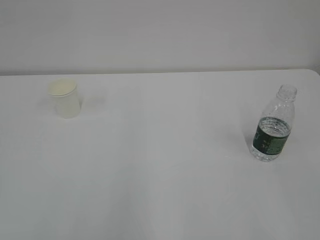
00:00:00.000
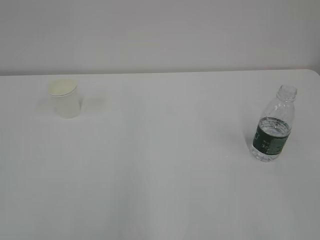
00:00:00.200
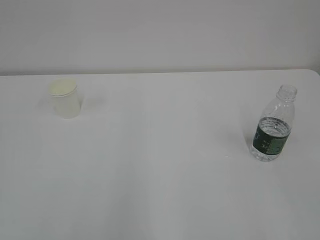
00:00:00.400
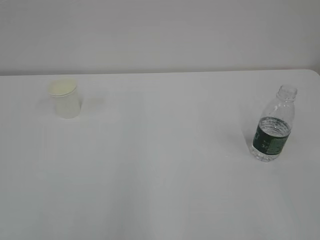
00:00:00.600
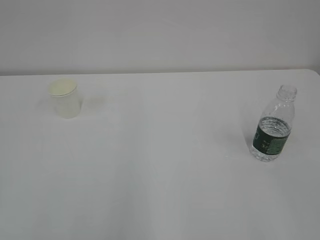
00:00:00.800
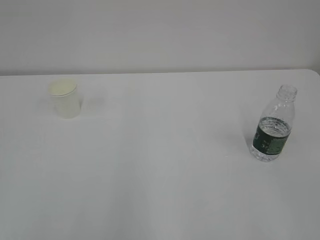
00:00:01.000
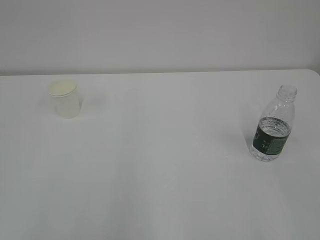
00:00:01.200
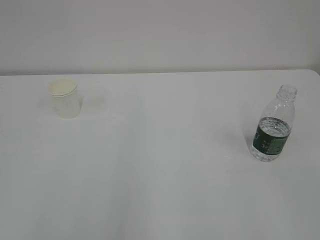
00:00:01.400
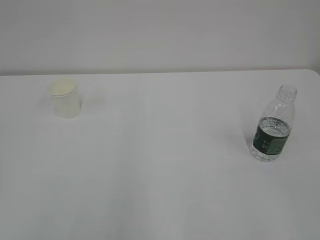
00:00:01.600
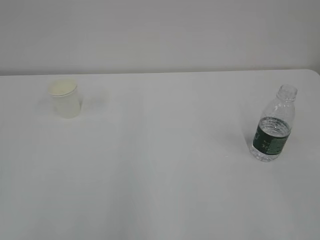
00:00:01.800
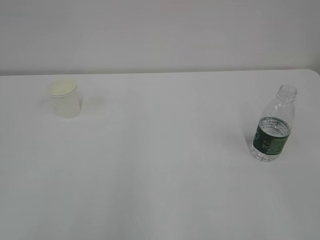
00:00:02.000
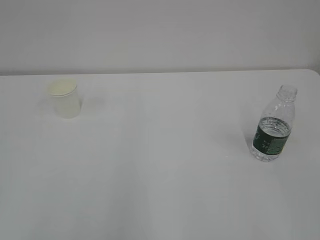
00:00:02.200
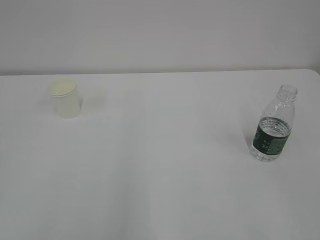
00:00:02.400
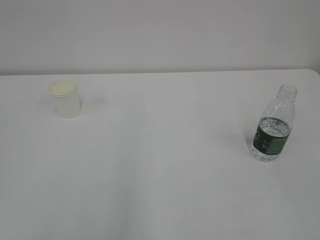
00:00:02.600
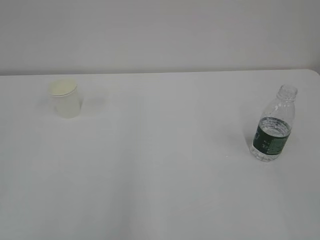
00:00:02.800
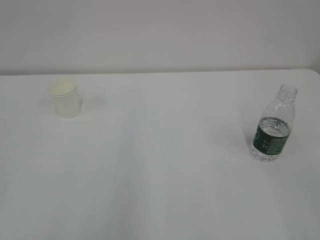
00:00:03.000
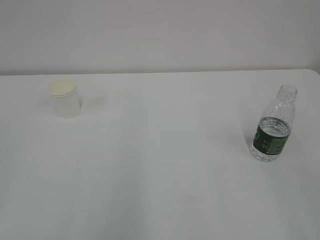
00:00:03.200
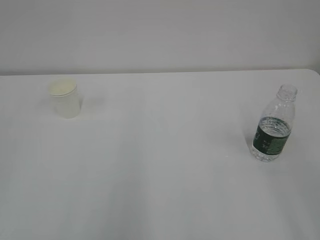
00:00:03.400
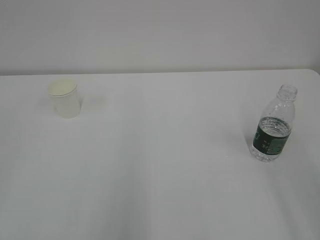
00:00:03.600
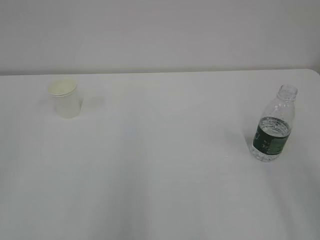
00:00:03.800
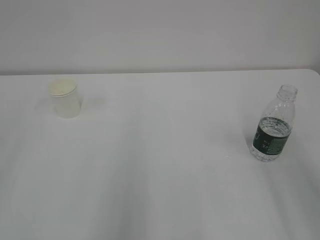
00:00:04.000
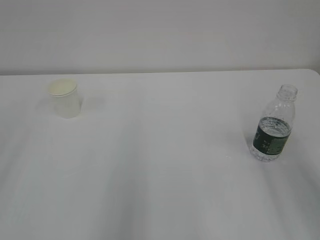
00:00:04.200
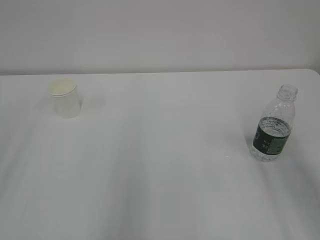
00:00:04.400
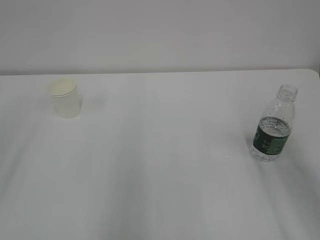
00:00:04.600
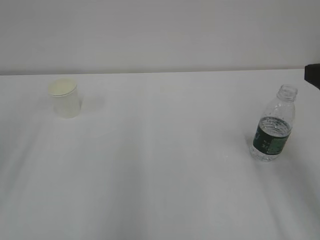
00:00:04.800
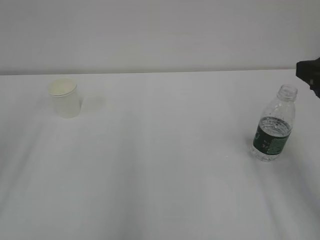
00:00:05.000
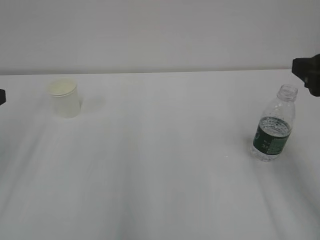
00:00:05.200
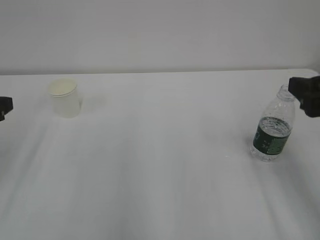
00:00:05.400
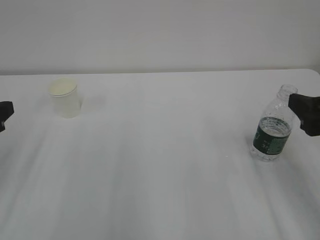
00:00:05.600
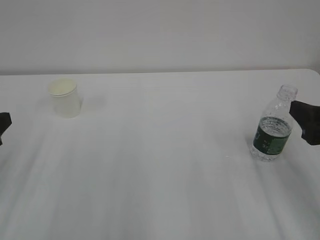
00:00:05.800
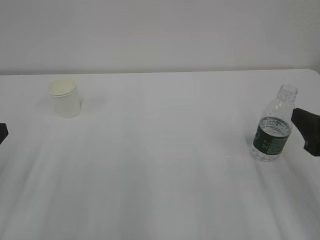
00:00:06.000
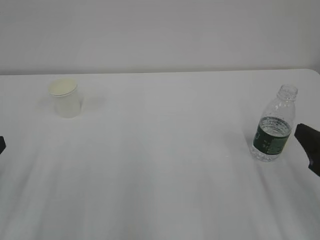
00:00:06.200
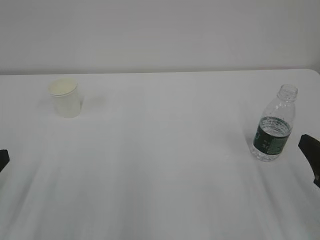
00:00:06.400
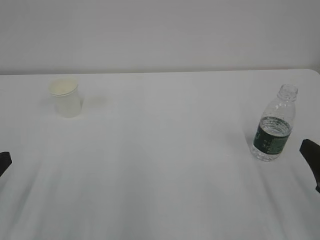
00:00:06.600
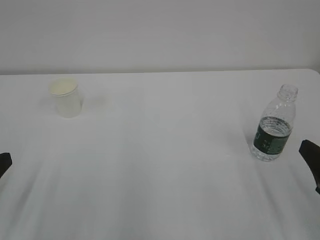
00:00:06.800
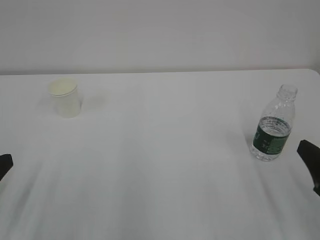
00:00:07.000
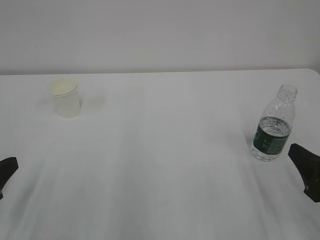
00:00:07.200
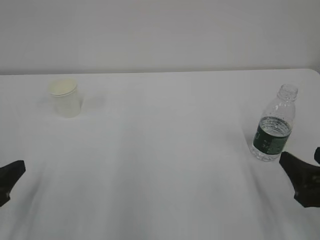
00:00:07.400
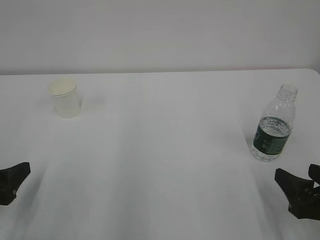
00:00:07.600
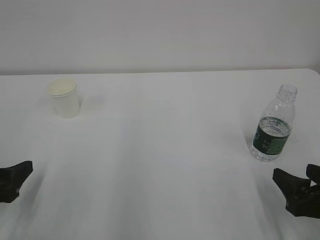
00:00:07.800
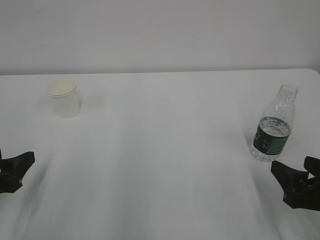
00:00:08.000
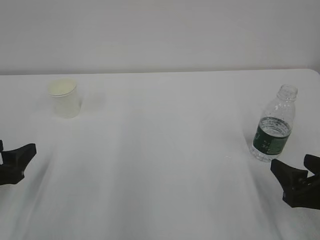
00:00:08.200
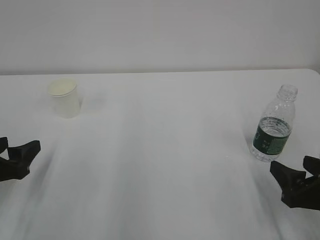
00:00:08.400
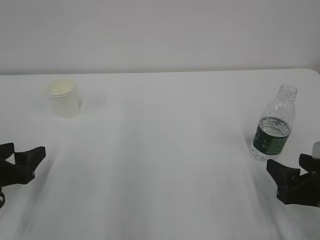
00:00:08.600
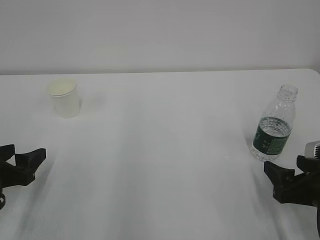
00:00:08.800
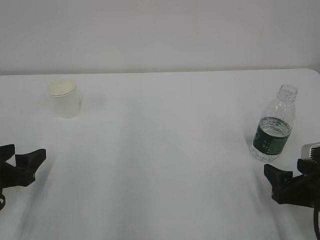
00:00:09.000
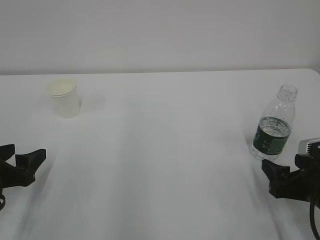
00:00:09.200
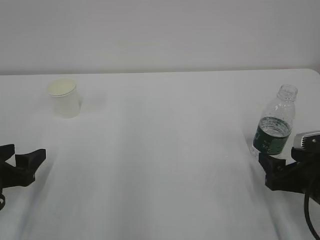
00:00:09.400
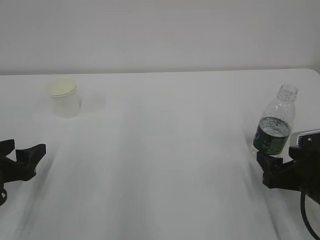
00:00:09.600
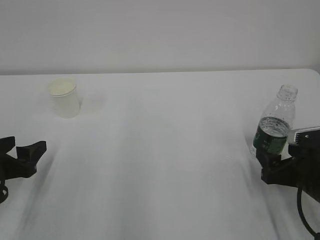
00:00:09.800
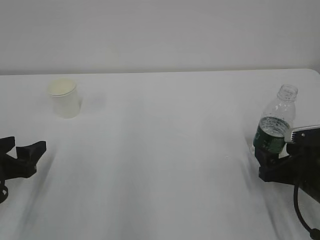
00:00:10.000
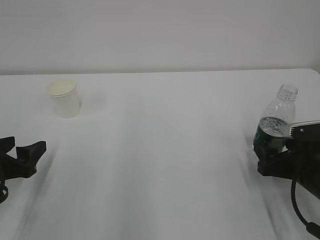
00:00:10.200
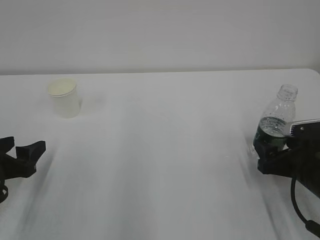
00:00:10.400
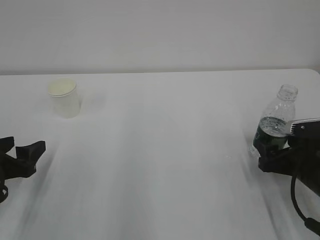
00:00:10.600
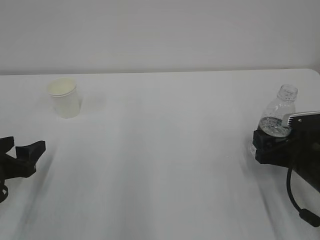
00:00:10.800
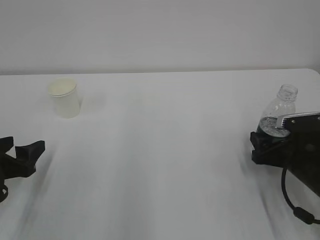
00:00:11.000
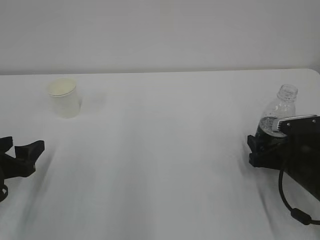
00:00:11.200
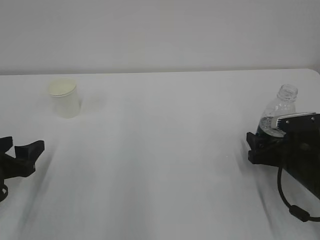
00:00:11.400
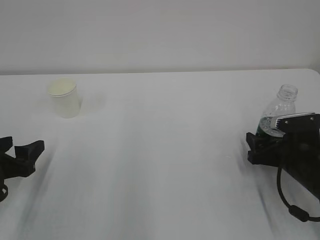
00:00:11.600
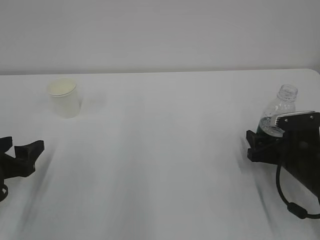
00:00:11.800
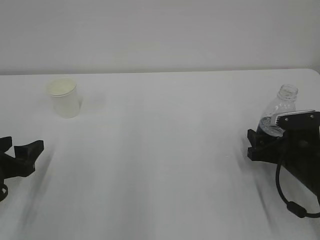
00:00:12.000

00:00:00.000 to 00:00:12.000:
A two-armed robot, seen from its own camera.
00:00:04.400 to 00:00:06.000: The right gripper shifts some 10 cm downward.
00:00:06.000 to 00:00:07.600: Both grippers move downward, some 5 cm. The left gripper opens up.
00:00:07.600 to 00:00:09.000: The grippers make only small movements.
00:00:09.000 to 00:00:10.400: The right gripper goes roughly 5 cm forward.
00:00:10.400 to 00:00:12.000: The right gripper closes up.

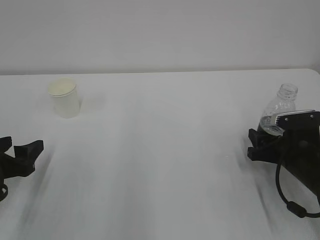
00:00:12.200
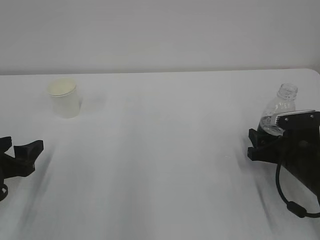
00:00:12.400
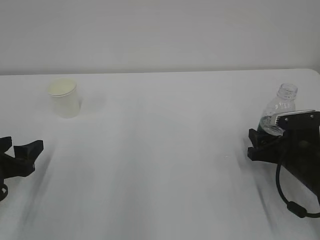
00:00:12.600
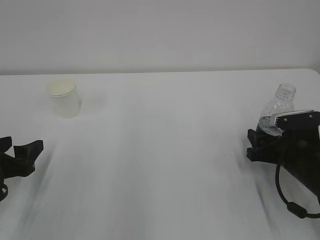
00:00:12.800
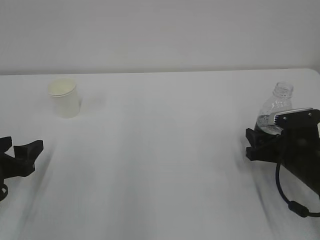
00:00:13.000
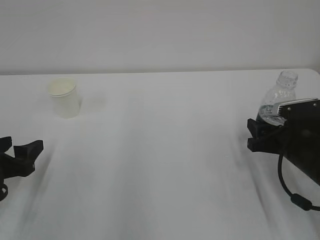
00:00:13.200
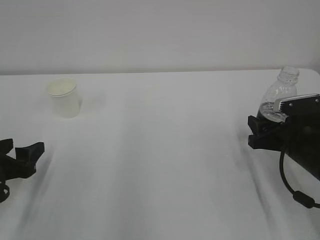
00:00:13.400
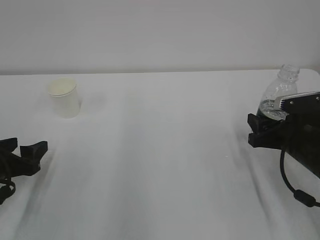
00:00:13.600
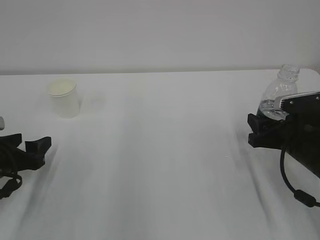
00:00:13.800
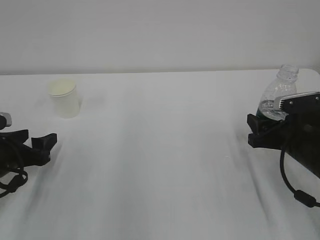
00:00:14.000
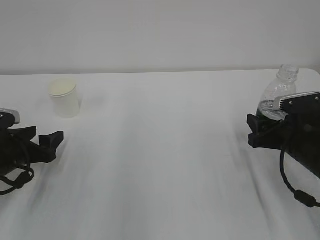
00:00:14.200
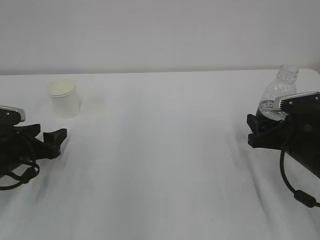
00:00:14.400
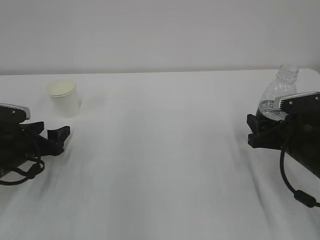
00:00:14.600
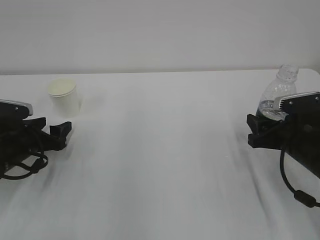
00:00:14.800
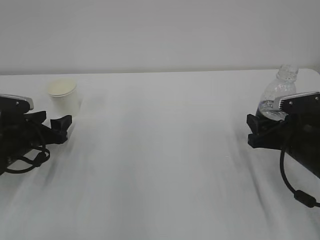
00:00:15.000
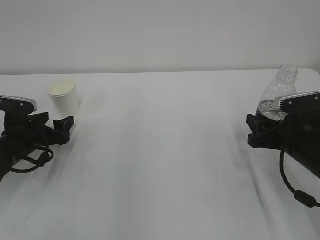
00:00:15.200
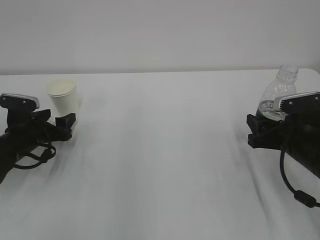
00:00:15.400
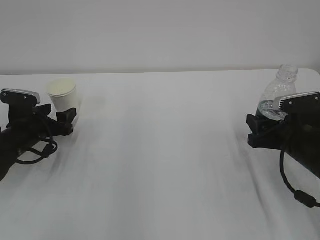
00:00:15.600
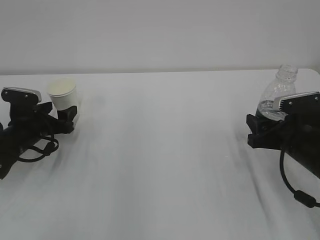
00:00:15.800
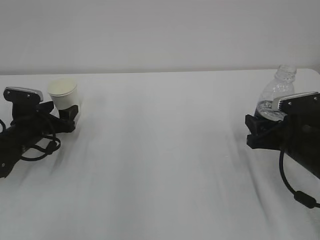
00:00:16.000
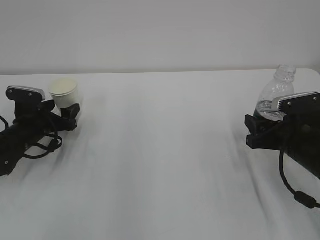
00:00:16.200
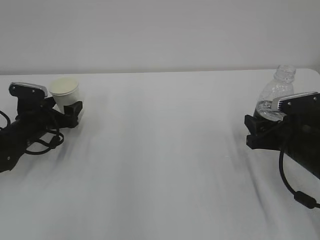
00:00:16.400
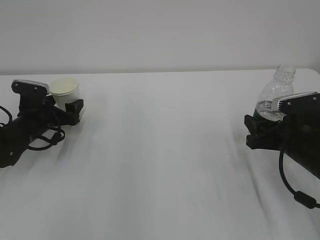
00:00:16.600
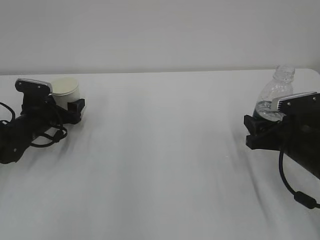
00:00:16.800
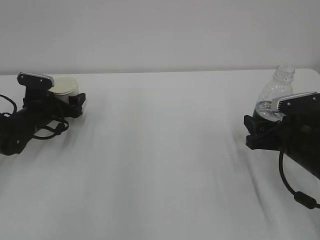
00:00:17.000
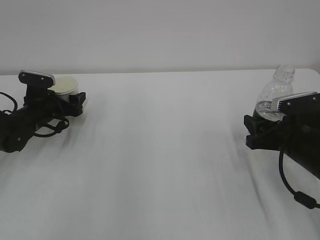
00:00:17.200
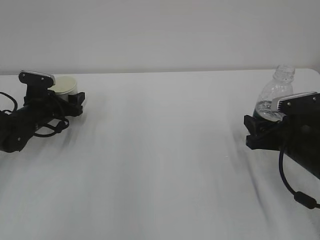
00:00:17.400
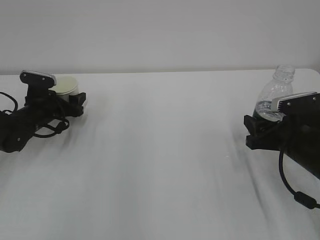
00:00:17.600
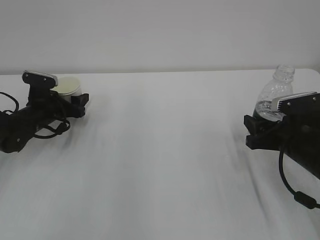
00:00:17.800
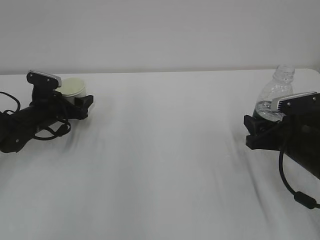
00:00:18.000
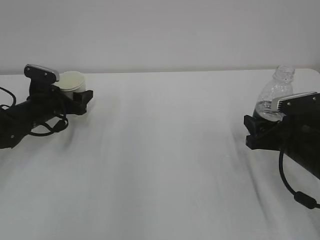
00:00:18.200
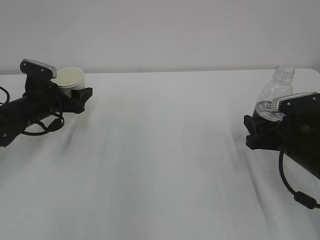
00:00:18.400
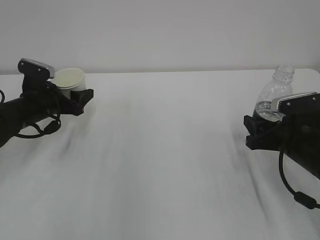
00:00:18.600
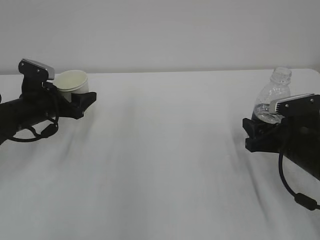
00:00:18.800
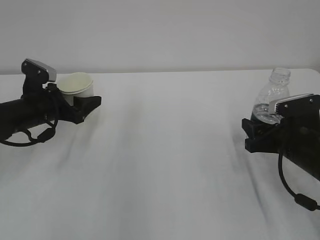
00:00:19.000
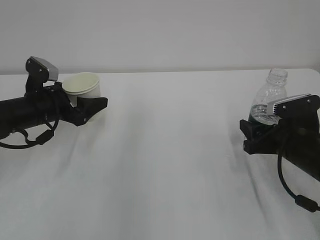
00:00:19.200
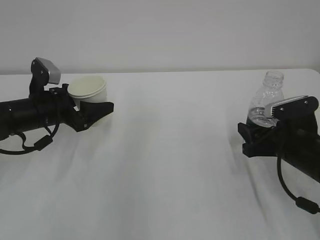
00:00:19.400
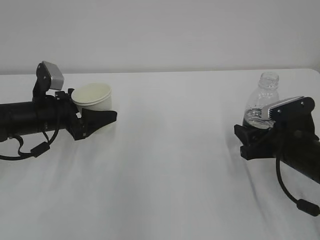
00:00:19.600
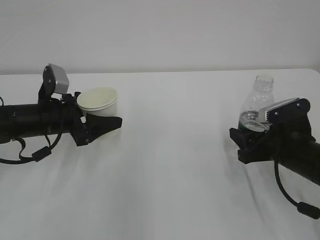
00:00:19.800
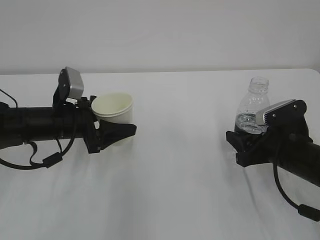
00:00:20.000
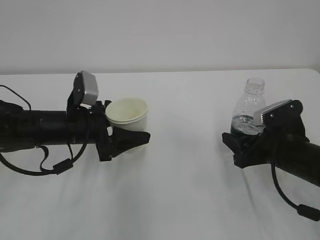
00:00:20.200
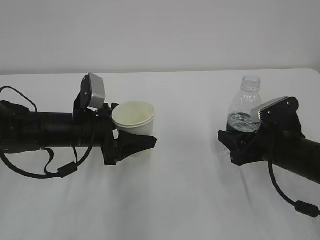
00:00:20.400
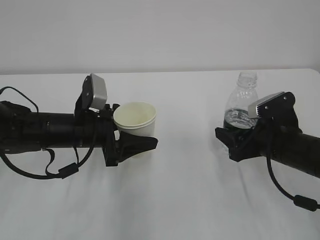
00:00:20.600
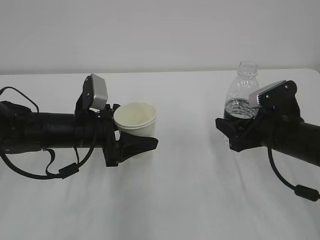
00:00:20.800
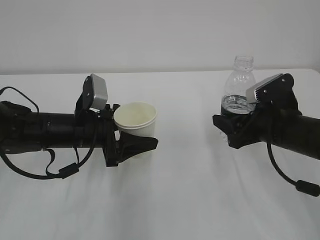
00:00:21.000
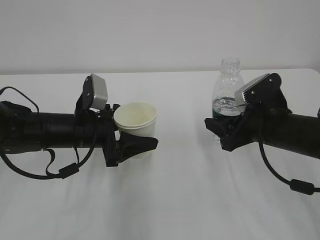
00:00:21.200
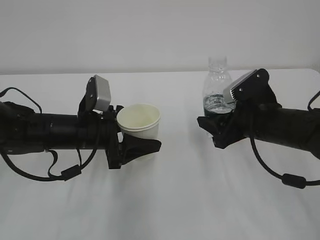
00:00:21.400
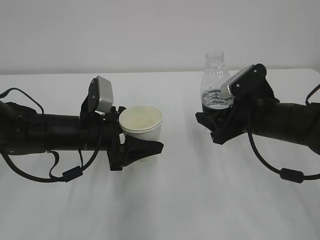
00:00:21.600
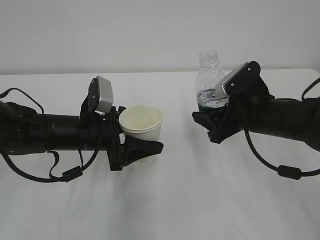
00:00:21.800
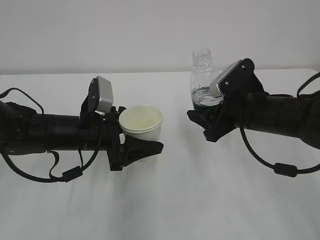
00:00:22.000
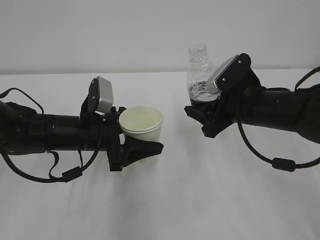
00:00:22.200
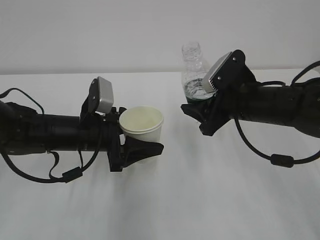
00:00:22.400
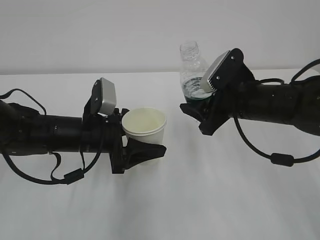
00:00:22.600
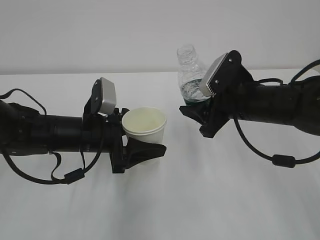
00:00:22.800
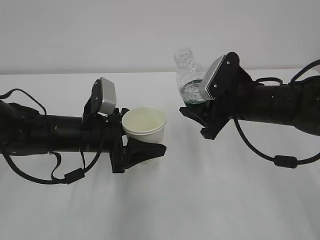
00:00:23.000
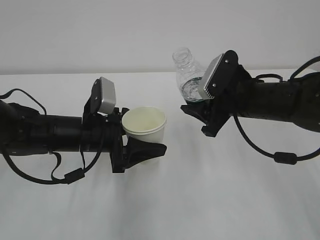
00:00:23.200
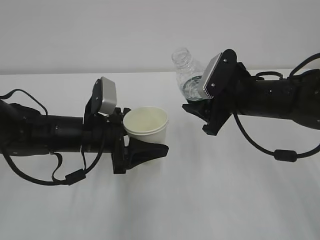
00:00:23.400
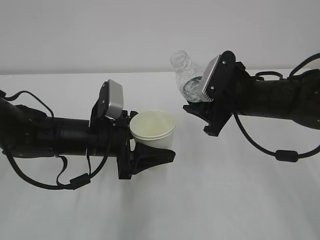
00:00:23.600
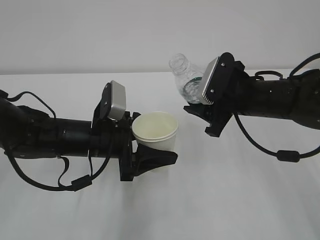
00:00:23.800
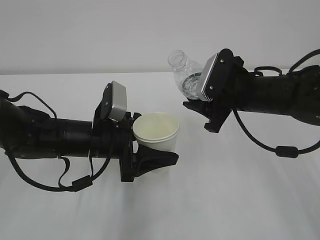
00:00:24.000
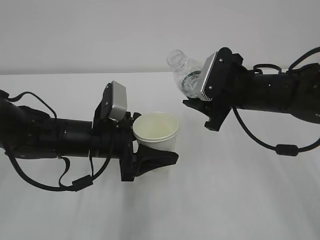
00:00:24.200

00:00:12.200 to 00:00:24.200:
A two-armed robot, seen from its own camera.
00:00:12.200 to 00:00:13.800: The grippers stay close to where they were, moving slightly.
00:00:13.800 to 00:00:15.200: The left gripper travels forward by some 10 cm.
00:00:15.200 to 00:00:16.600: The left gripper shifts roughly 5 cm forward, and opens.
00:00:16.600 to 00:00:18.200: The left gripper closes up.
00:00:18.200 to 00:00:19.800: The left gripper moves backward, roughly 10 cm.
00:00:19.800 to 00:00:21.200: The right gripper shifts by about 5 cm. Meanwhile the left gripper heads to the right, covering some 5 cm.
00:00:21.200 to 00:00:22.600: The right gripper changes place by about 5 cm.
